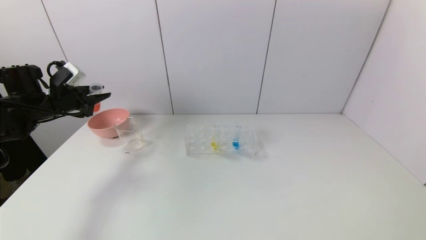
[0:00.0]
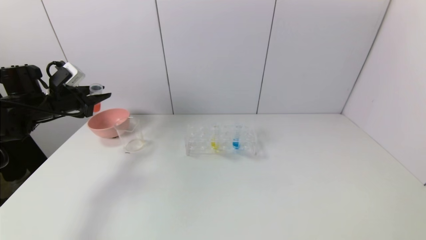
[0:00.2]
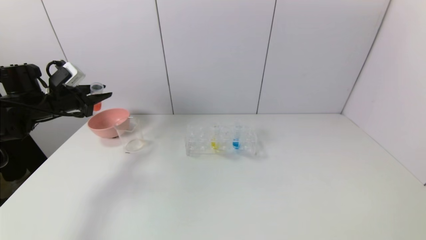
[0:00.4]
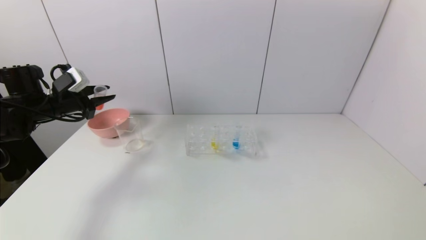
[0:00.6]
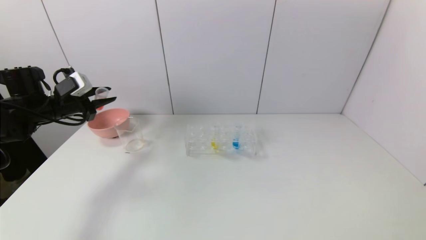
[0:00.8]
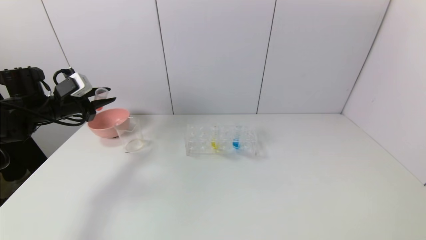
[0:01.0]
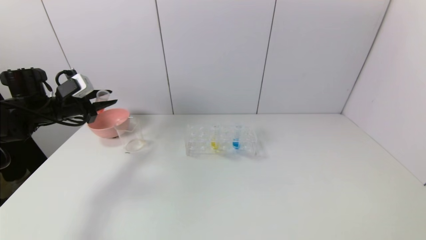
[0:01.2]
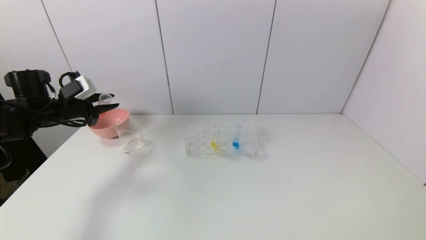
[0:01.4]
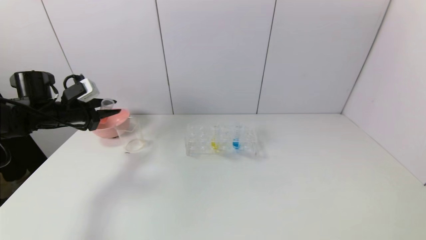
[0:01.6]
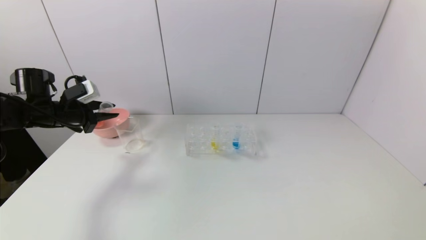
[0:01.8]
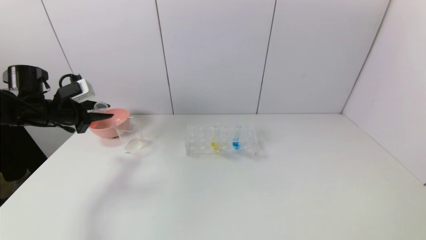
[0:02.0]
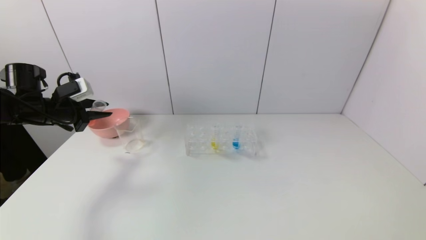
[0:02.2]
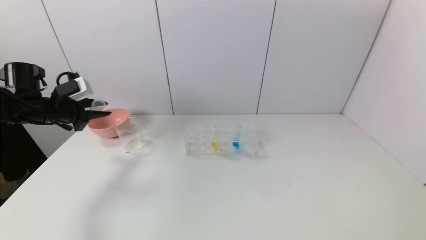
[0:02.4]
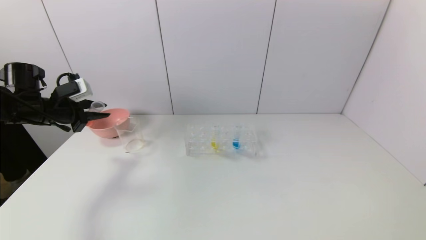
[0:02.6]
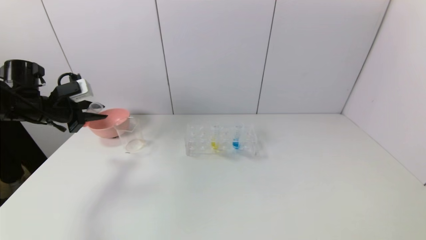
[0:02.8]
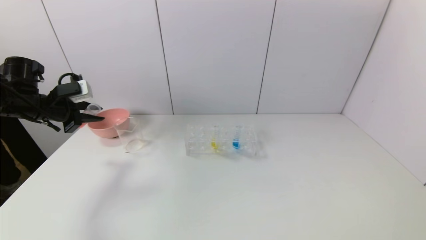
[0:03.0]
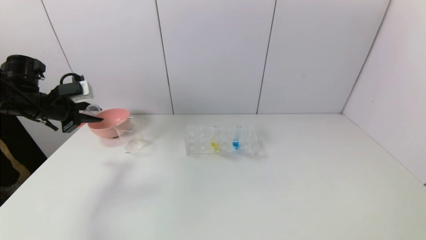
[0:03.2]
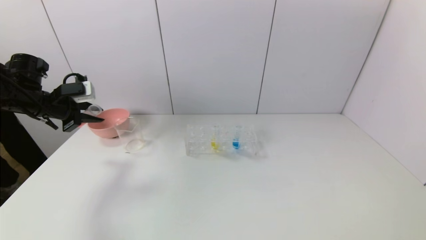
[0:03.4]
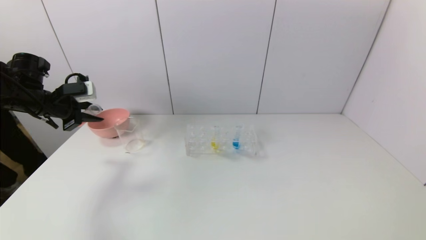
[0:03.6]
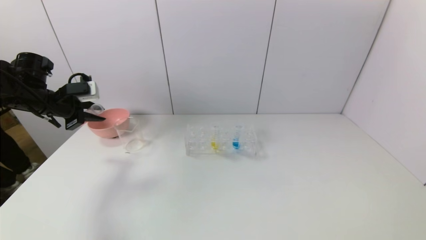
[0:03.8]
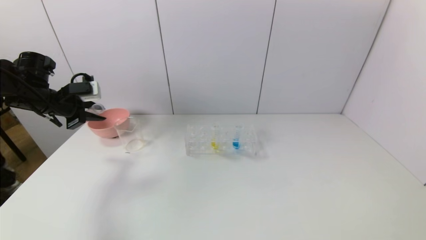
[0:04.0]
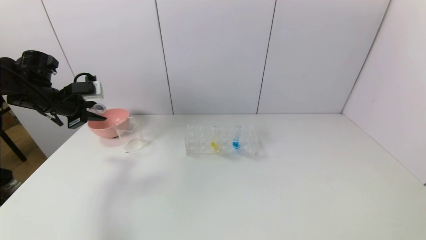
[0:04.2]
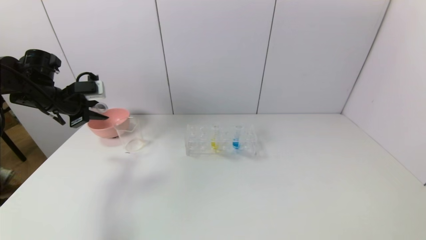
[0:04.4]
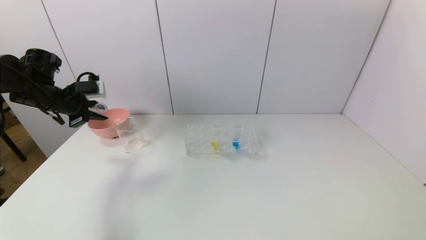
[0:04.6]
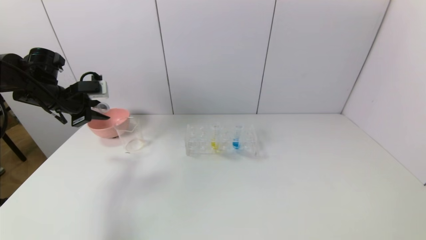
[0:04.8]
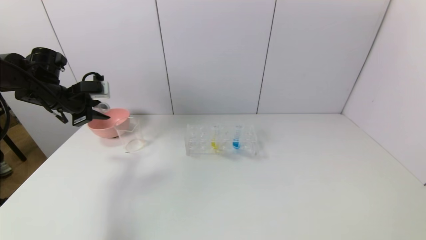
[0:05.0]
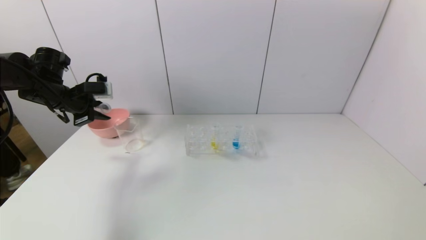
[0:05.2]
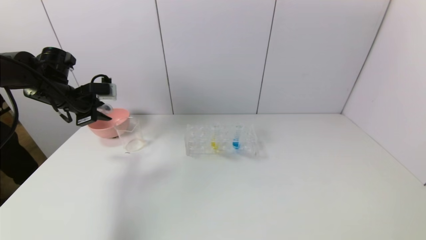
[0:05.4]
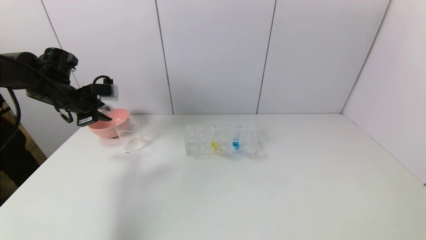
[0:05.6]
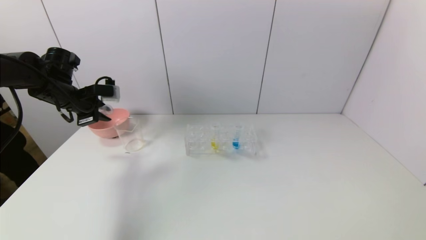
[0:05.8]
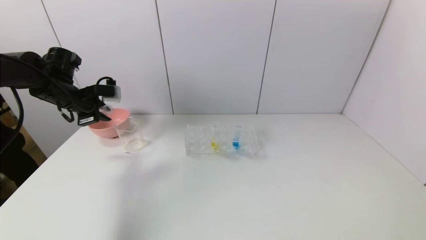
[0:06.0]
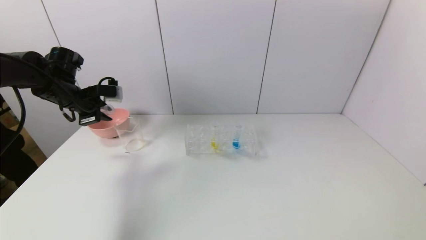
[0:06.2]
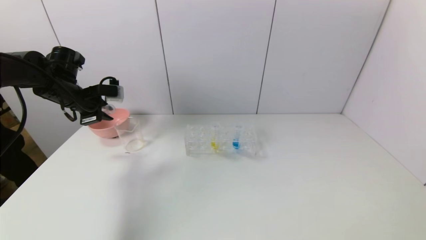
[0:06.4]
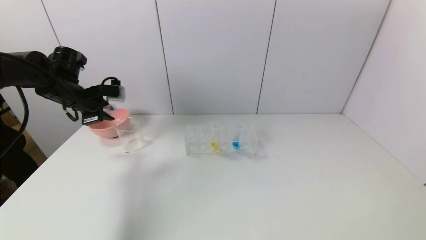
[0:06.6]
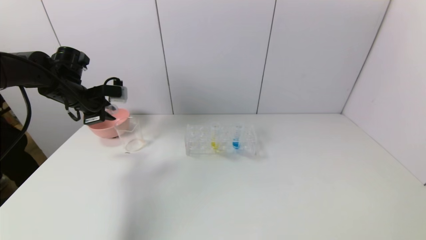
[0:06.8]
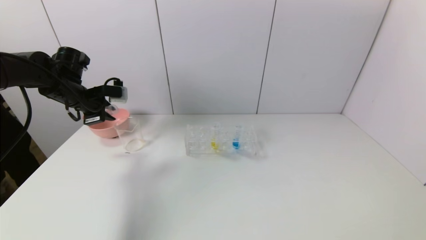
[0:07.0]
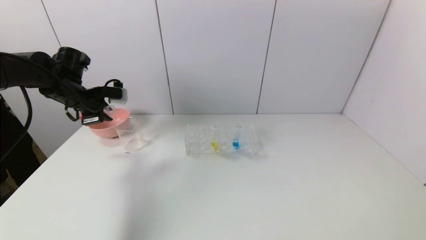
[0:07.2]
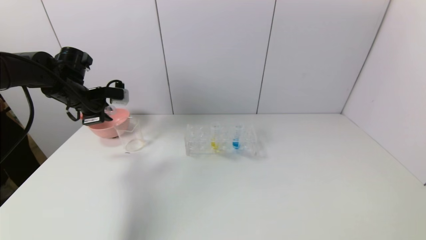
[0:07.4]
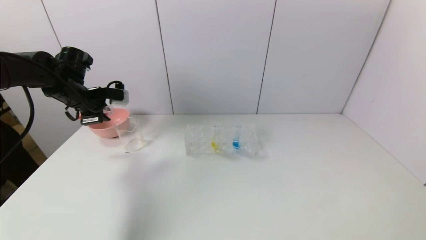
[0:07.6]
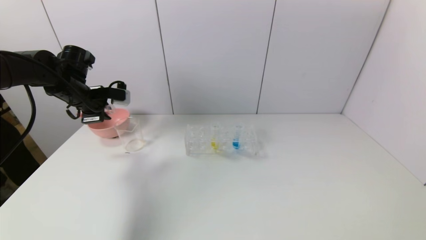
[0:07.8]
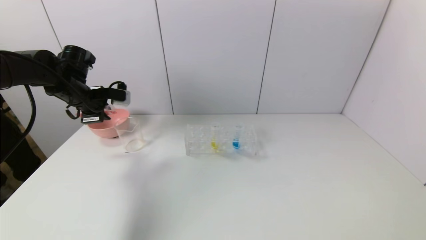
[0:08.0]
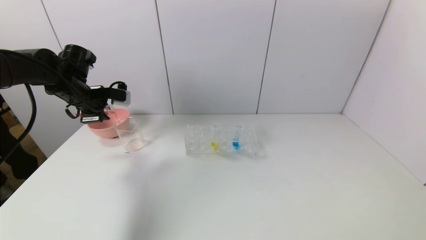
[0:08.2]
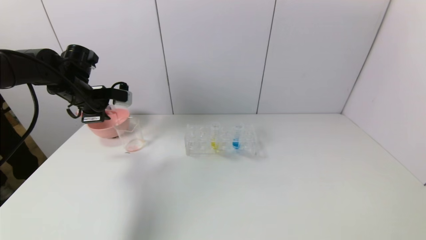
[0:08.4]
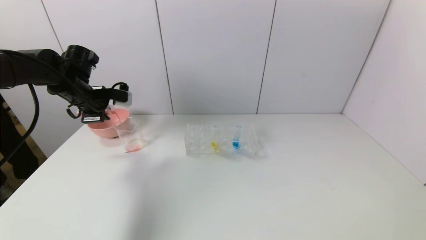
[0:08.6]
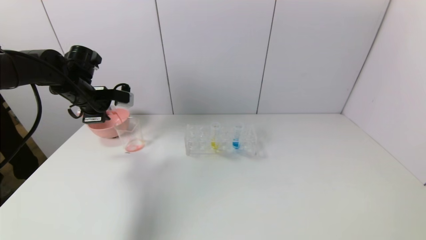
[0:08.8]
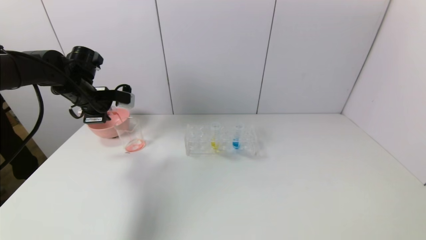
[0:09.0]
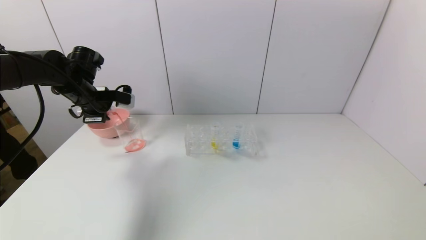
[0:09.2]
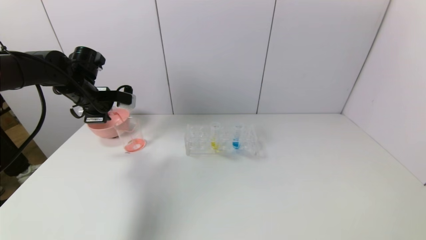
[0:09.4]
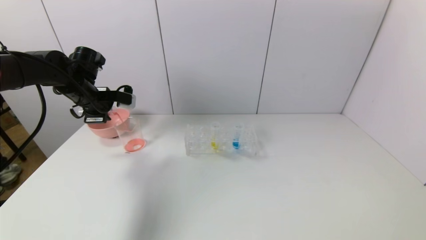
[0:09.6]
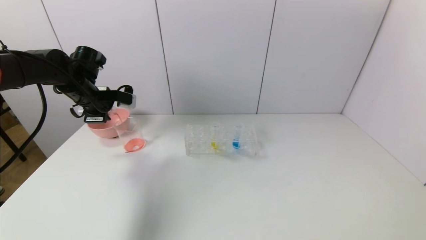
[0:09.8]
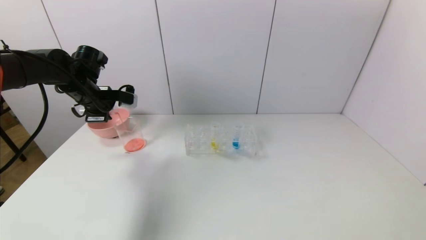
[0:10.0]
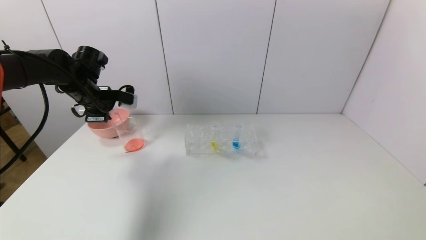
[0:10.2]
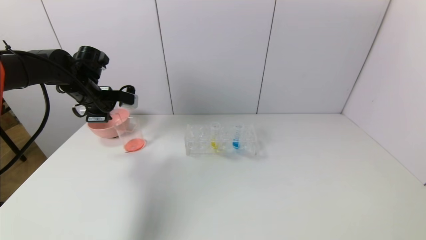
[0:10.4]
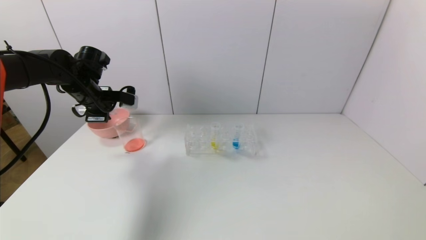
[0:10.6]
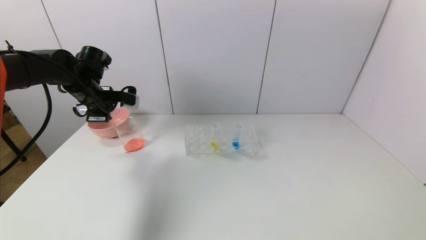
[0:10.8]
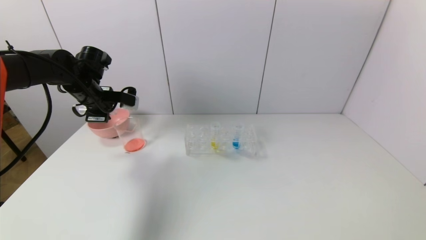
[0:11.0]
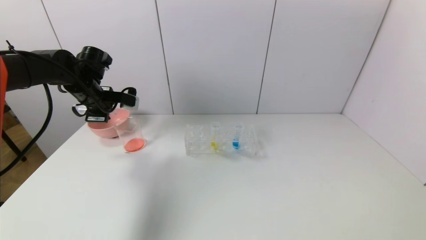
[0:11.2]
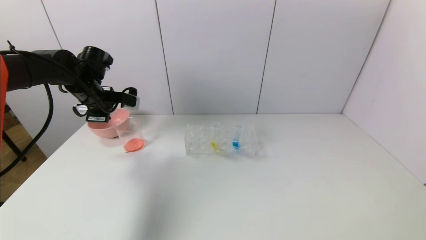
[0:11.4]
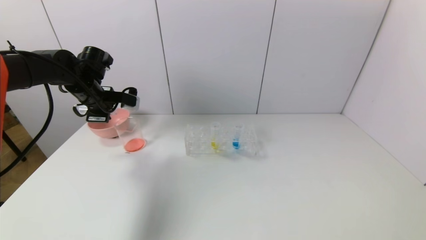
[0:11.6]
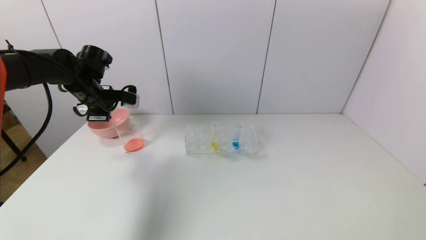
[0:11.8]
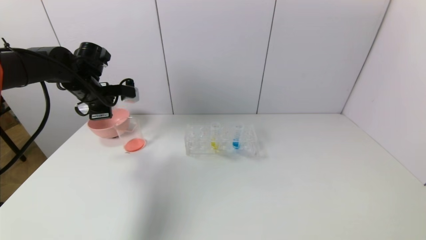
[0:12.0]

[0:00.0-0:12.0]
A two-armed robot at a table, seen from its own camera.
Task of the whole recording: pick up the test tube with yellow pigment and the test tube with red pigment by grippers and pour them into the beaker.
Step, 0:00.0 to 0:11.0: Pour the red reagent into the graduated cylinder with the left gripper.
0:00.0 to 0:01.6: The grippers stay close to where they were, moving slightly.
0:01.6 to 0:03.0: The grippers make only small movements.
0:03.0 to 0:04.4: The grippers move only a little.
0:04.4 to 0:06.0: There are only small adjustments of the grippers.
0:06.0 to 0:09.0: The grippers make only small movements.
0:09.0 to 0:10.4: Neither gripper changes place.
0:10.4 to 0:12.0: The grippers stay close to where they were, moving slightly.

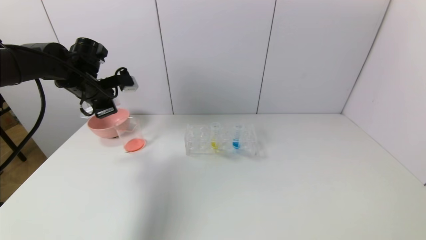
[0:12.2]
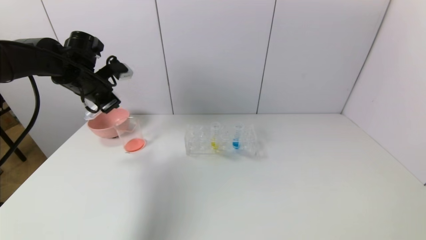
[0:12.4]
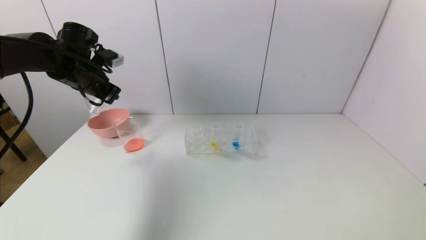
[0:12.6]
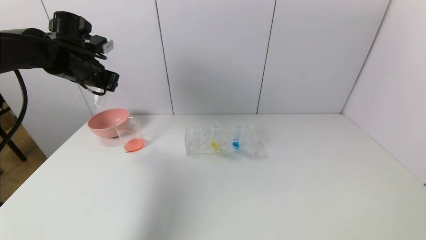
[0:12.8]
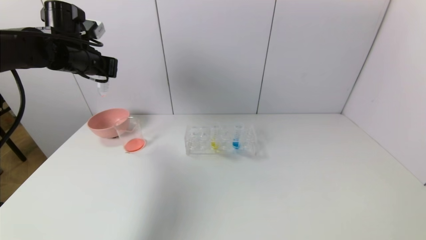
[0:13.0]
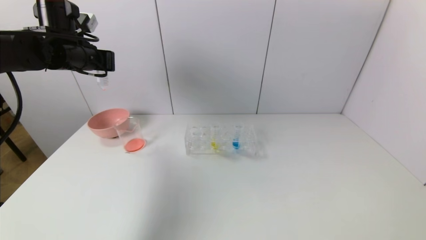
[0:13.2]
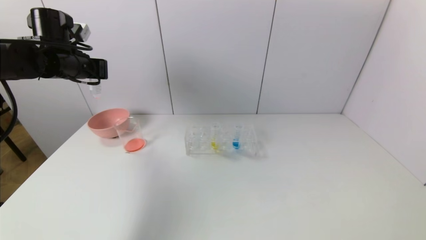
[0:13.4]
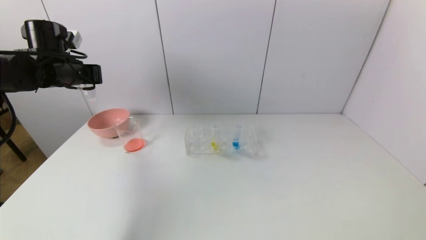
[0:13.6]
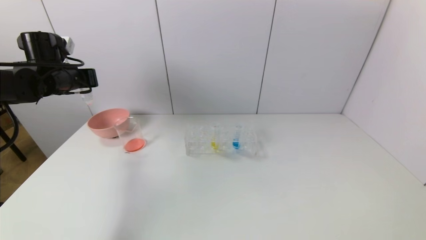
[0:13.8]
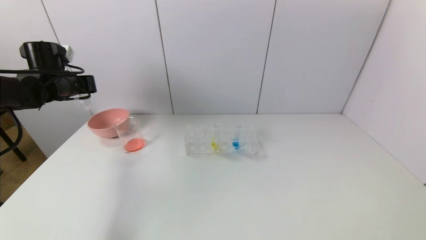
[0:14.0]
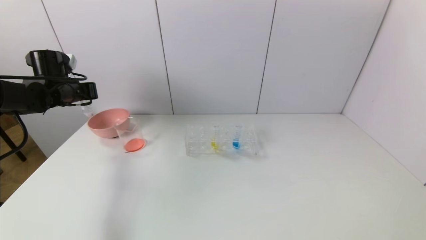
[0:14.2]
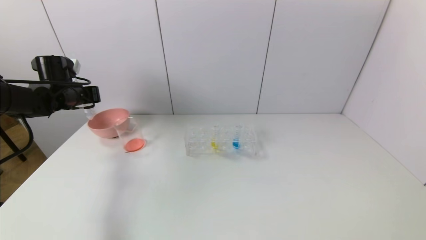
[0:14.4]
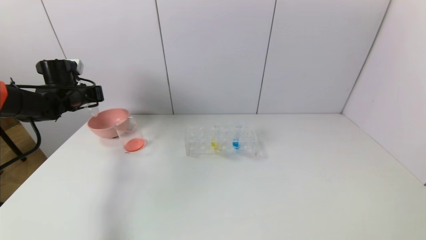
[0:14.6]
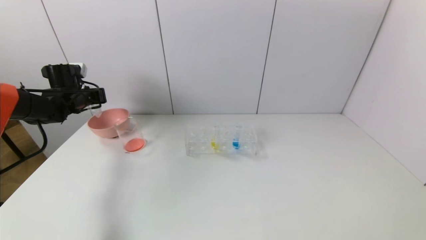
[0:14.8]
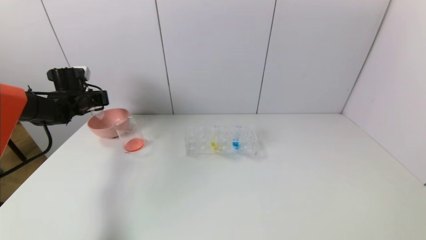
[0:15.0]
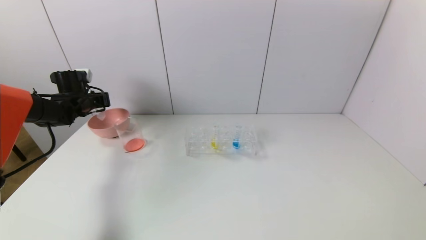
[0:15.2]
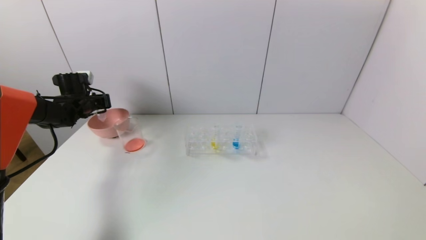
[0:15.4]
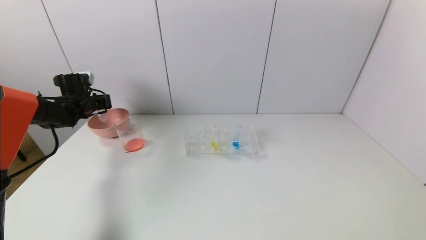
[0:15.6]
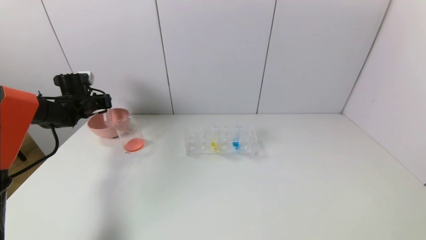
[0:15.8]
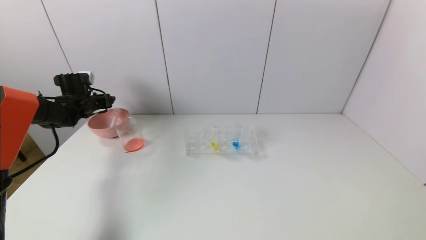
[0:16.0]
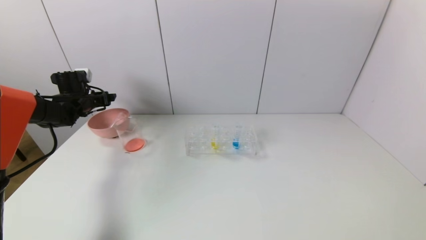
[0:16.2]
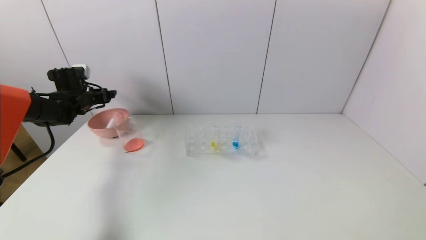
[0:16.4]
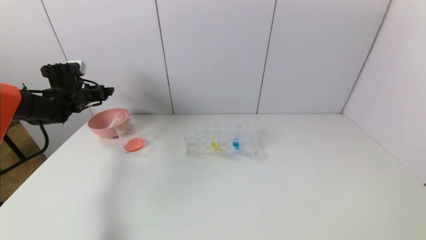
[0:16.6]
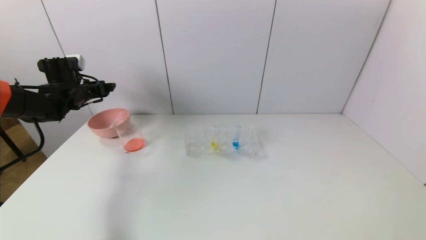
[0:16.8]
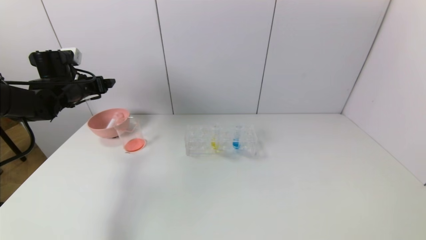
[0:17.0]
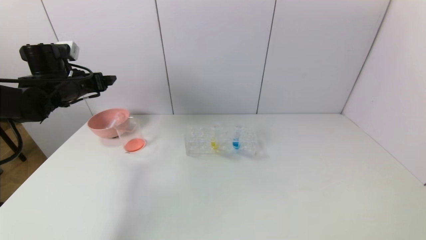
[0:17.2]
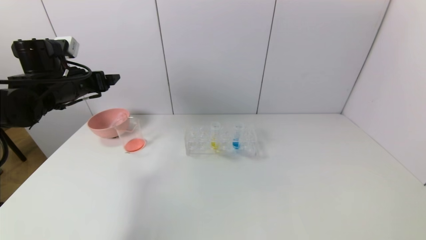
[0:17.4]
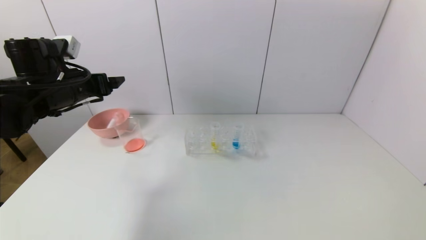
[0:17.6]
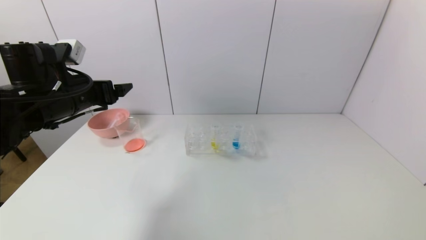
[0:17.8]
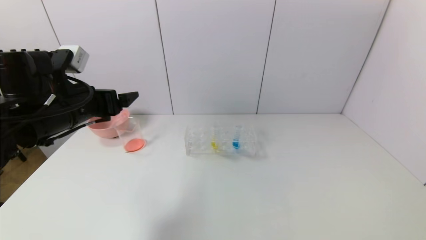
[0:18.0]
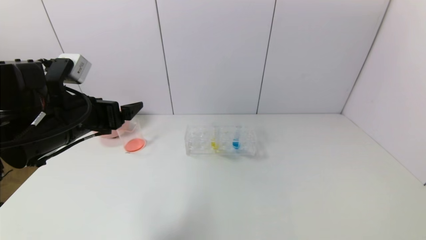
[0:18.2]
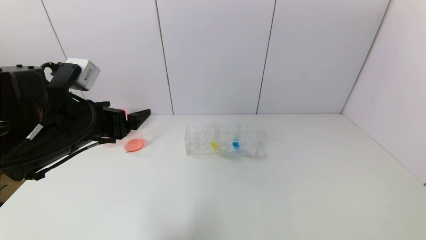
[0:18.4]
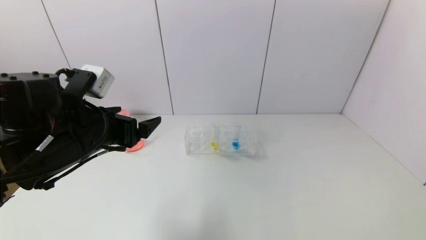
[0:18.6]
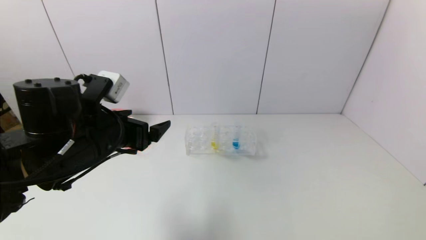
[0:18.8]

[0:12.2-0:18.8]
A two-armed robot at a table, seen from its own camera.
Task of the whole recording: pick up the test tube with yellow pigment and the test tube with red pigment by grippers and pour them into the beaker.
Step, 0:12.2 to 0:16.0: Place the test tube into the pink bowl with the left gripper.
0:12.2 to 0:13.8: The left gripper travels to the left by roughly 5 cm.
0:13.8 to 0:15.4: The left gripper goes approximately 15 cm downward and forward.
0:15.4 to 0:17.2: The left gripper travels backward, upward and to the right by approximately 15 cm, and opens up.
0:17.2 to 0:18.8: The left gripper travels backward and to the right by approximately 20 cm.
